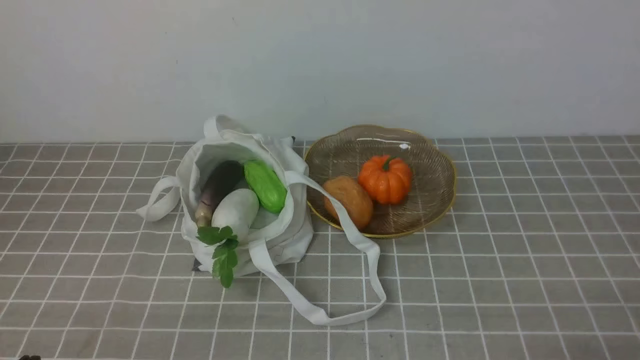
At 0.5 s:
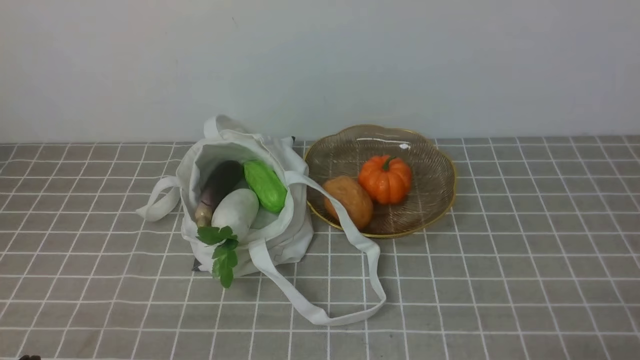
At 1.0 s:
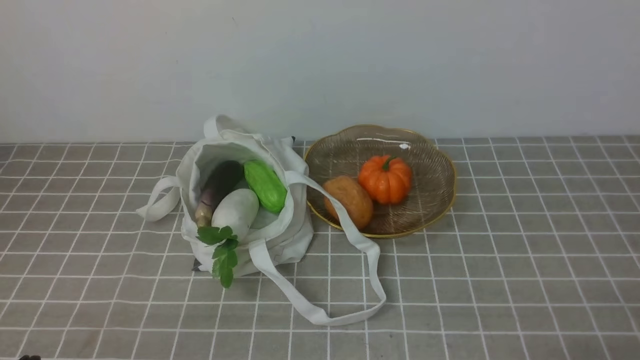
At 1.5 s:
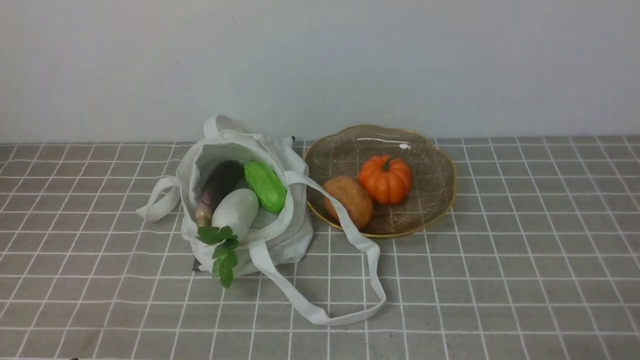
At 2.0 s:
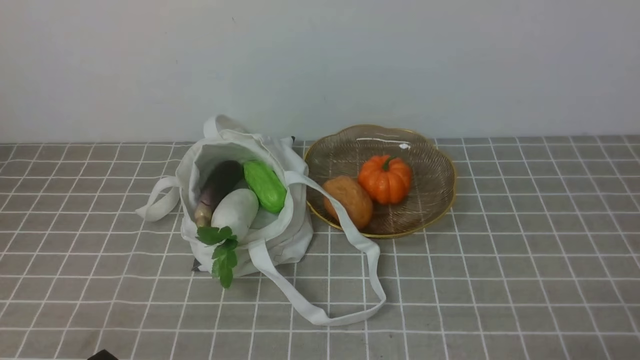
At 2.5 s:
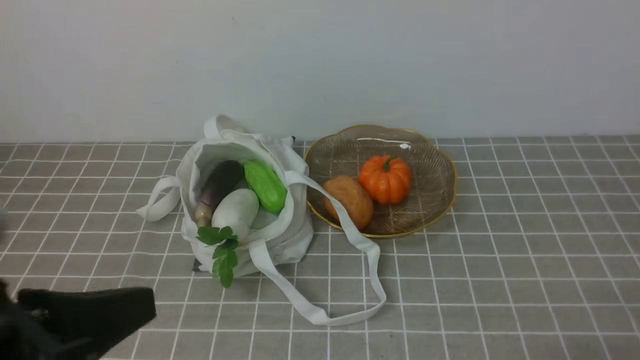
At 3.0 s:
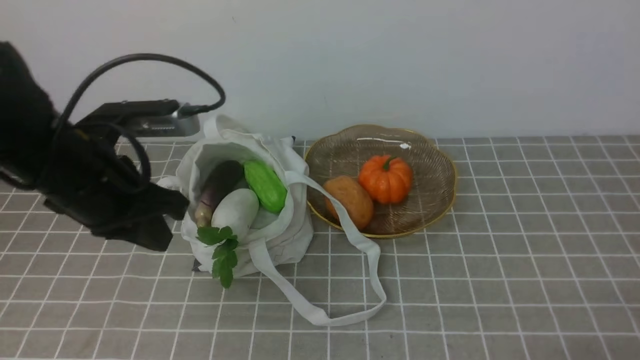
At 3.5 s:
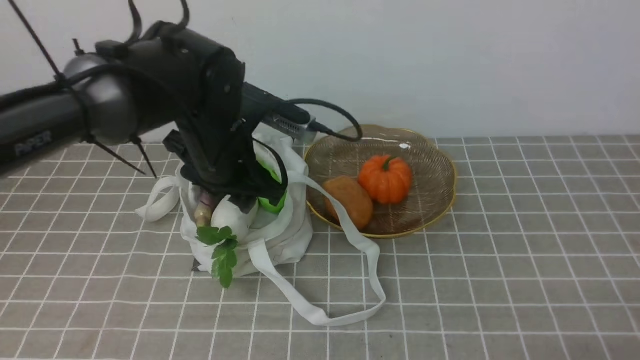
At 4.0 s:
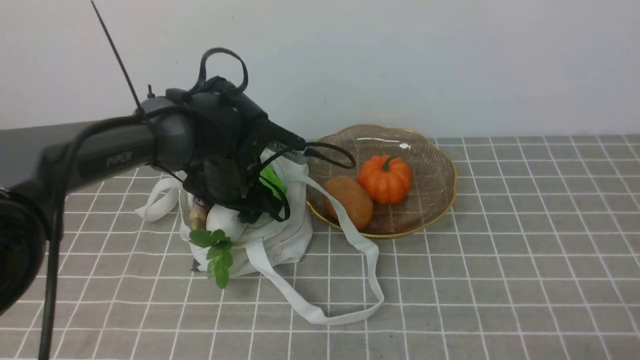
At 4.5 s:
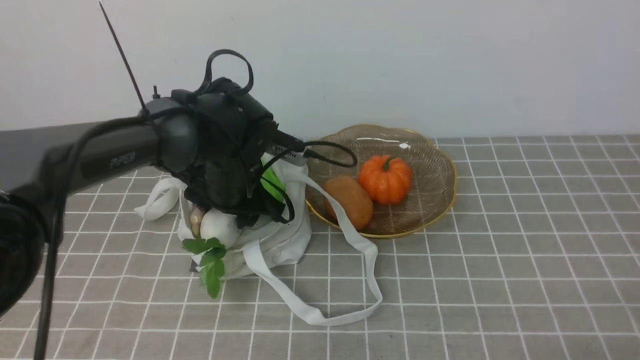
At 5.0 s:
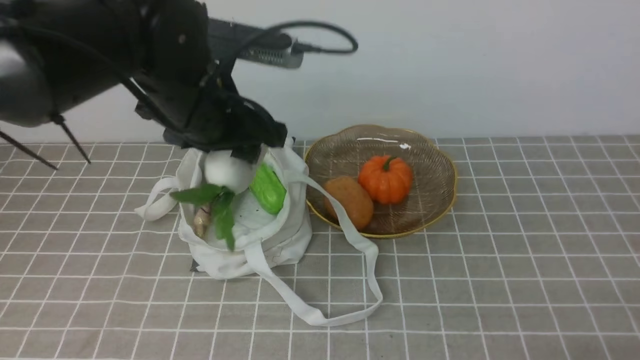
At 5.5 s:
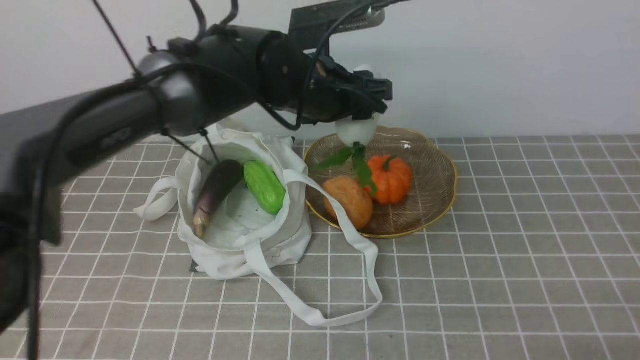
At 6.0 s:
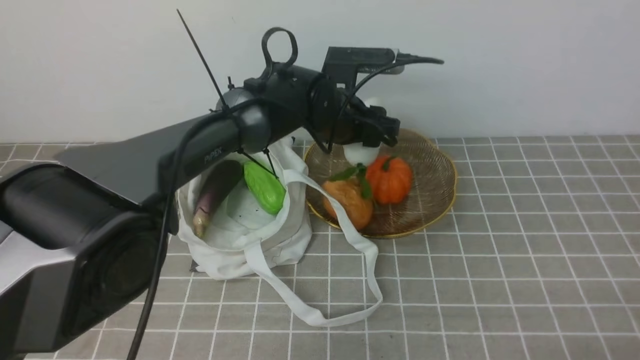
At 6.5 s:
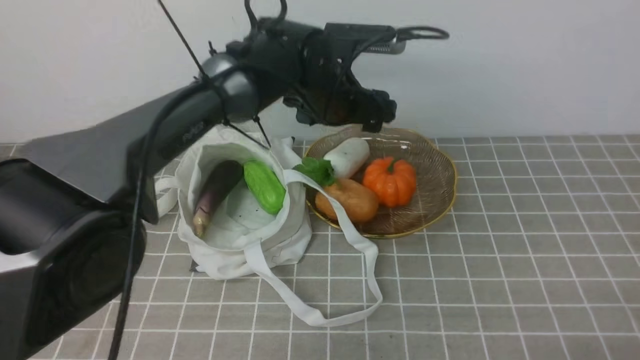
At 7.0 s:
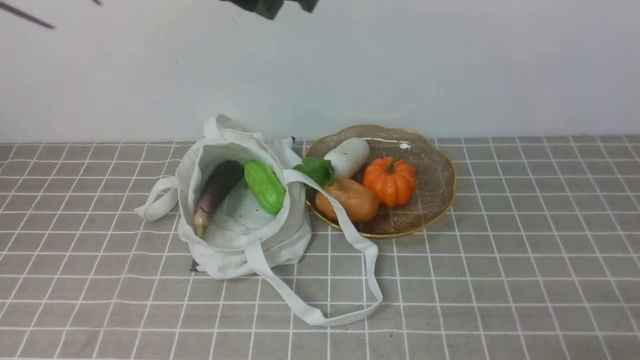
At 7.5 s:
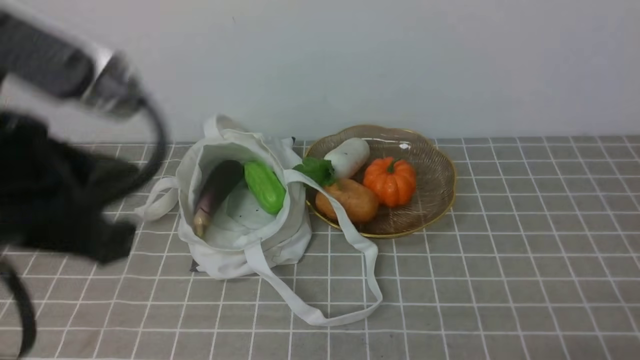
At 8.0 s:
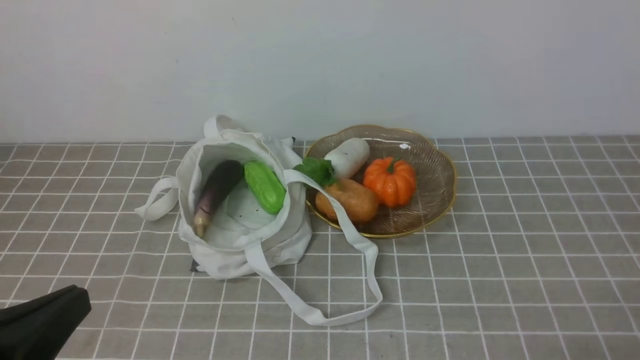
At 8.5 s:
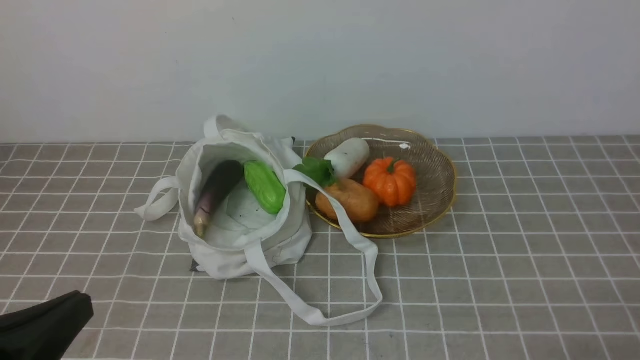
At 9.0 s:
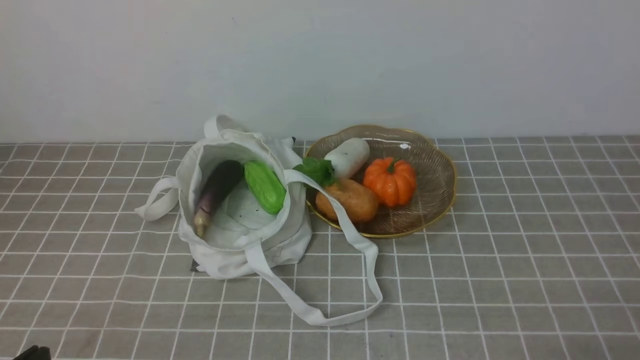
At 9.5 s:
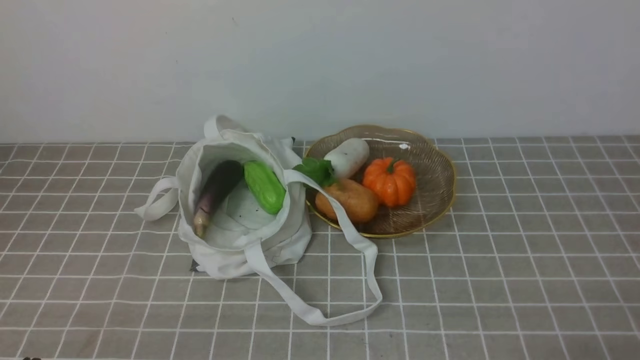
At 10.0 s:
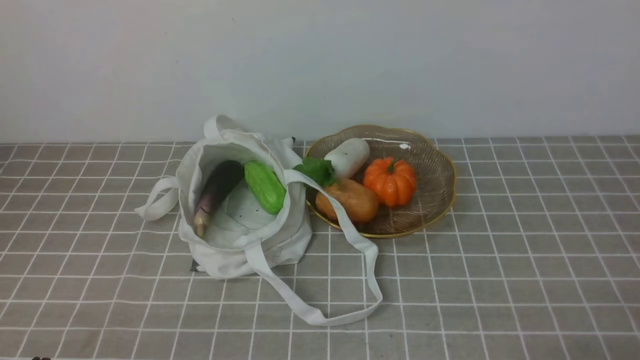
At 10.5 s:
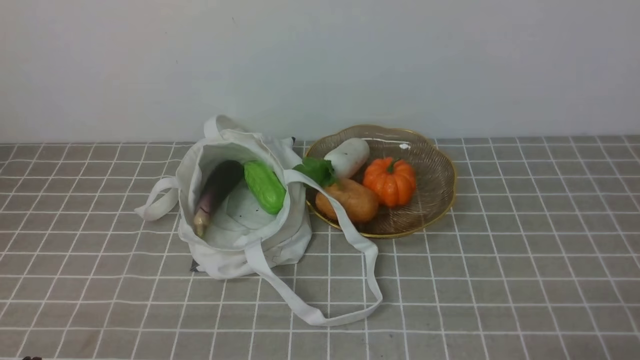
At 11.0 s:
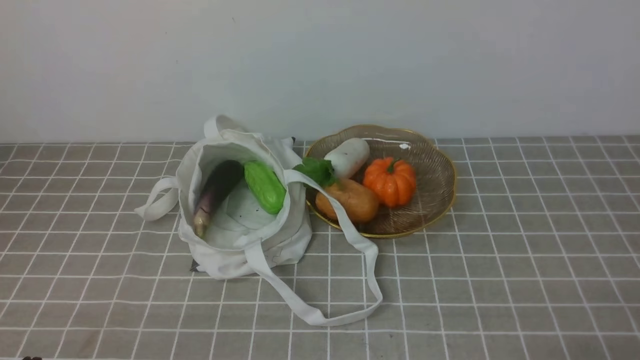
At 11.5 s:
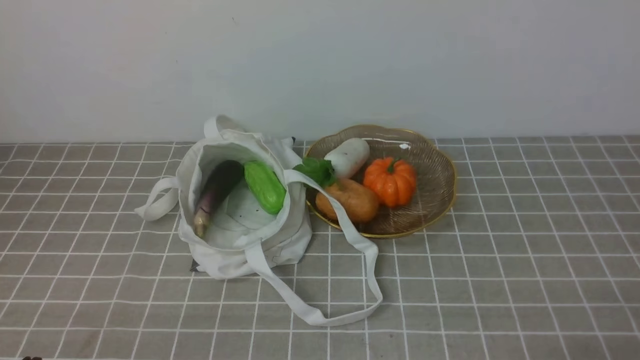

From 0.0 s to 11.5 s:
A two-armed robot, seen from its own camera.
Task of the whole recording: take vegetables from bag on grey coffee tablecloth place on plate.
Step, from 0.0 s to 4.0 s: Grasp the radish with left gripper.
Step, from 4.5 s to 6.5 s: Place the radish on the plate with left gripper.
From 2.0 s to 4.0 s: The left gripper moves forward, approximately 35 cm, and opens its fingers.
From 4.0 s to 6.0 s: The left gripper travels to the right and forward by approximately 15 cm, and reaches about 15 cm upward, then returns.
From 6.0 s to 7.5 s: The left gripper shifts roughly 40 cm backward, to the left and upward, and closes up.
From 7.5 s to 9.5 s: The left gripper moves downward and backward, about 20 cm.
From 9.5 s to 11.5 s: Neither gripper changes place.
